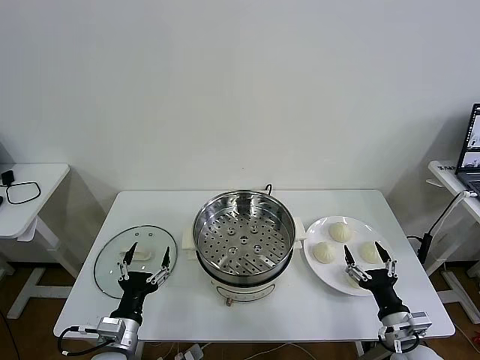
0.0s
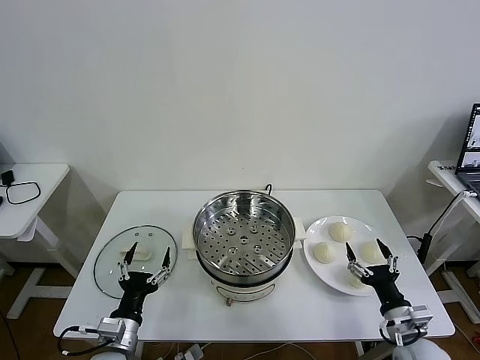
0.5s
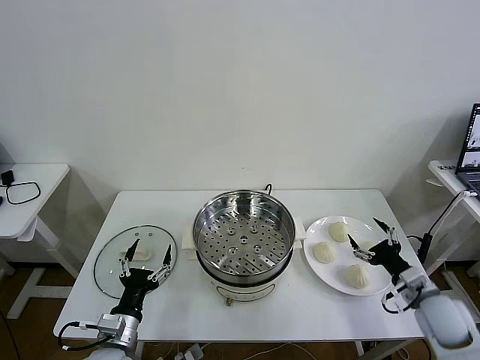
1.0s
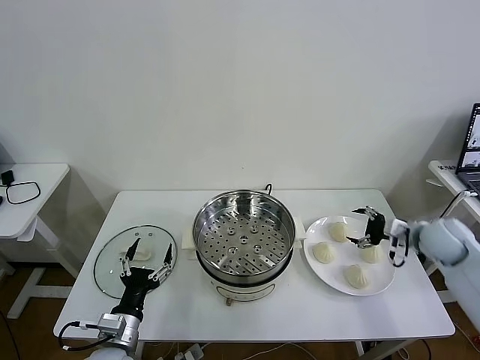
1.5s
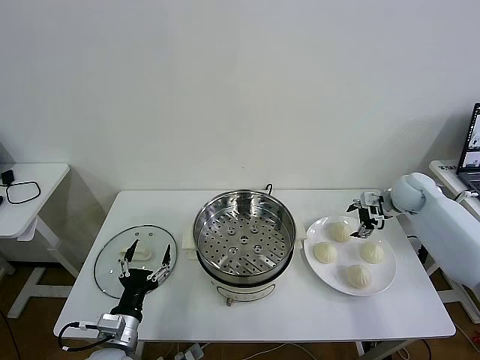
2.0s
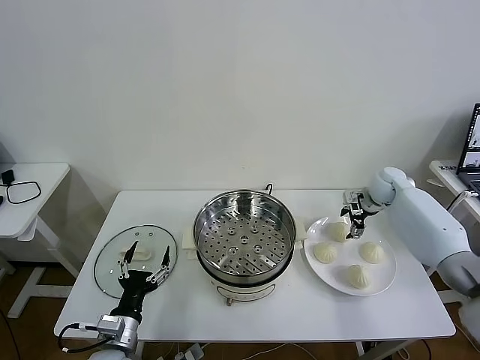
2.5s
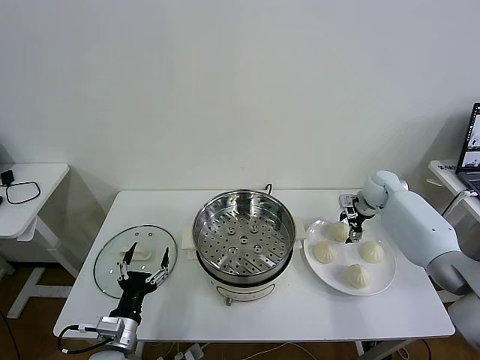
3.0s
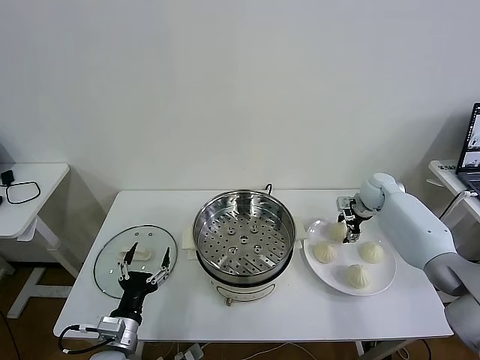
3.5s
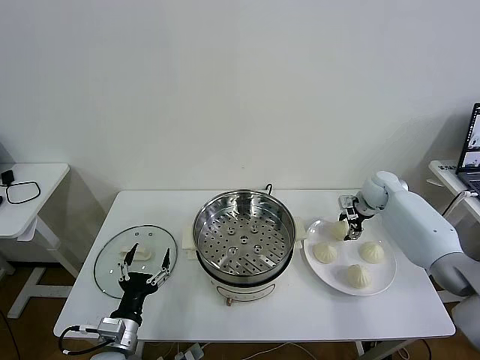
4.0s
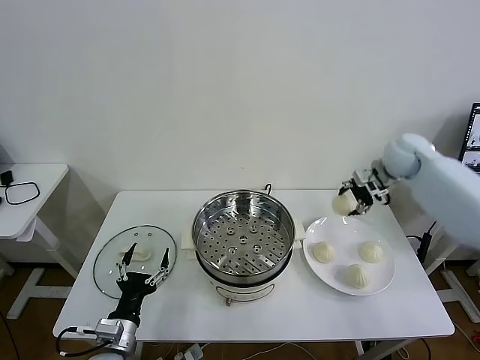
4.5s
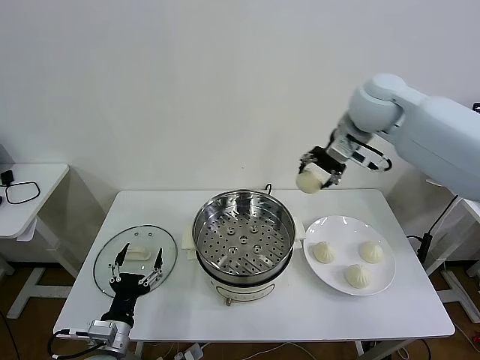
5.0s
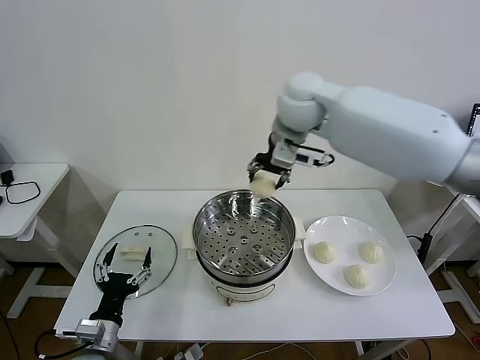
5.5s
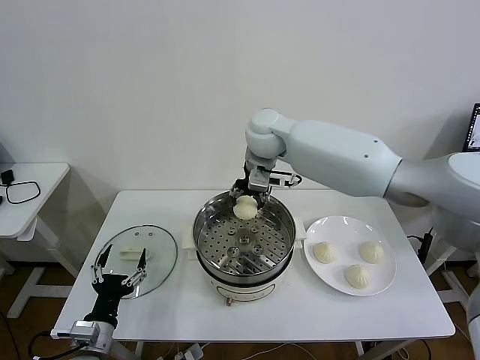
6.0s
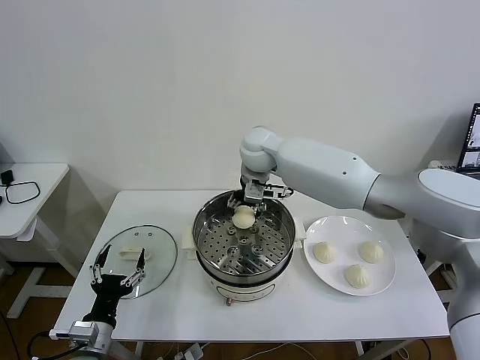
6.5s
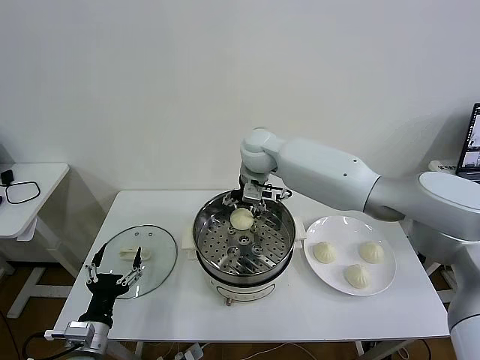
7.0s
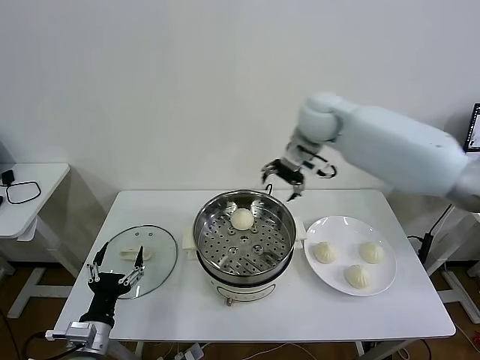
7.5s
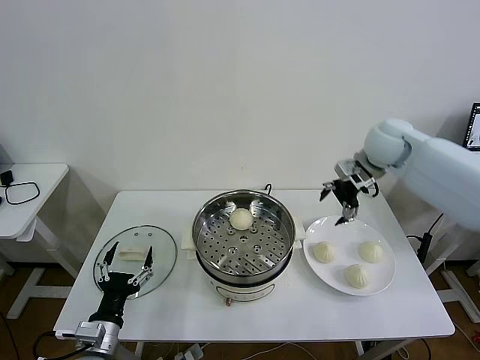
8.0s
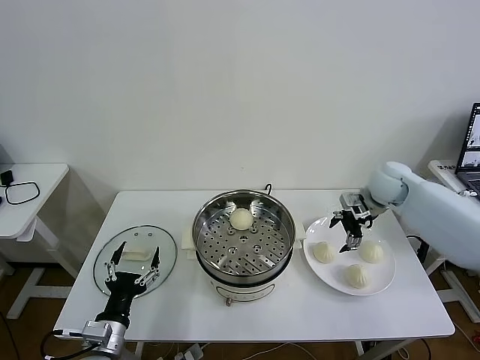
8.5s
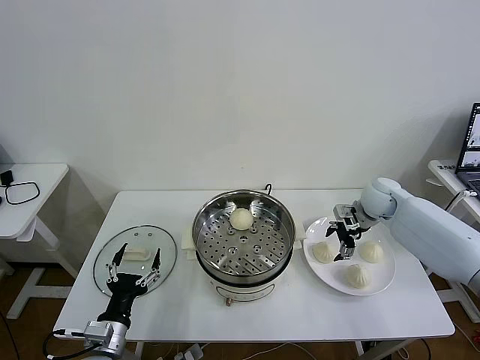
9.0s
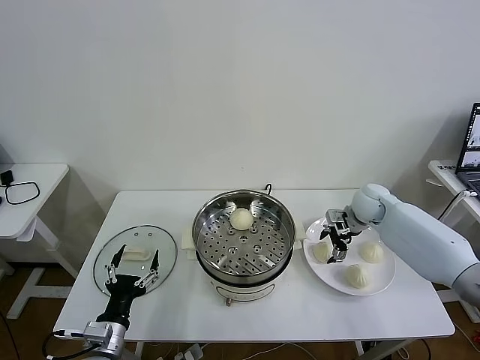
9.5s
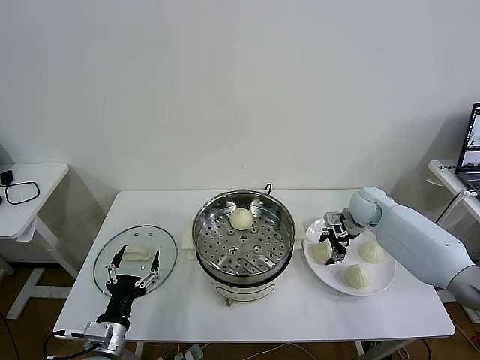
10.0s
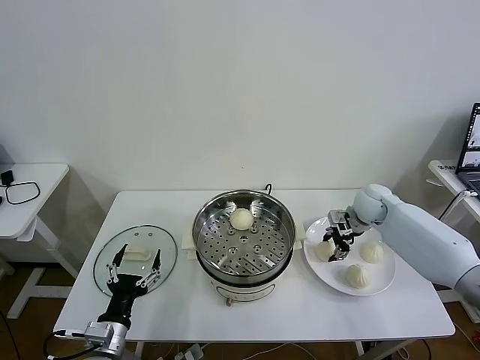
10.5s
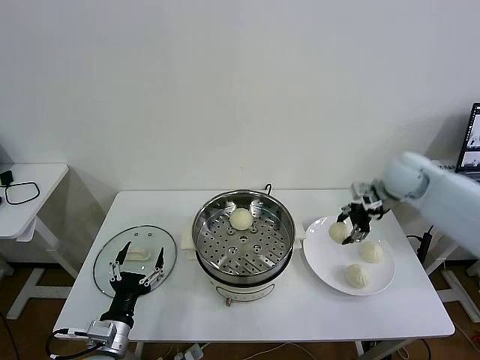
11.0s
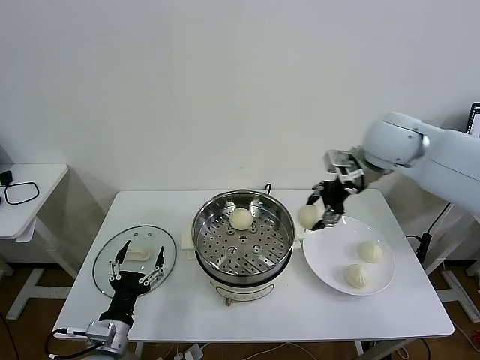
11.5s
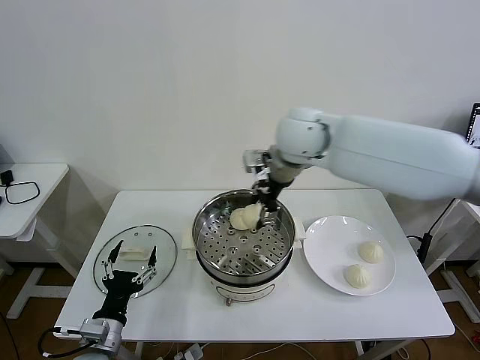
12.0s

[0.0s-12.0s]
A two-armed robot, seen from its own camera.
Task of the whole recording: take steamed baozi put them in steamer then cover it.
Step, 0.0s to 3.5s: Grasp the baozi in the plate with right gripper.
Step, 4.0s to 6.5s: Place the baozi on the steamer with right gripper.
Step, 7.5s to 10.0s: Grasp the baozi in the plate with right gripper.
2.0s to 4.0s: The right gripper closes.
4.0s to 6.0s: The right gripper shifts some 40 cm to the left and upward.
6.0s to 8.0s: The right gripper is displaced to the right by approximately 30 cm, and opens.
8.0s to 10.0s: The right gripper travels downward by some 15 cm, and closes up.
10.0s to 12.0s: The right gripper shifts some 35 cm to the left and upward, and closes up.

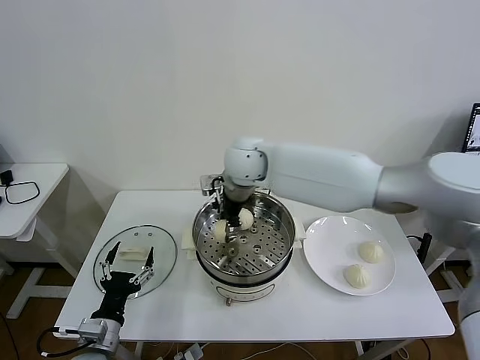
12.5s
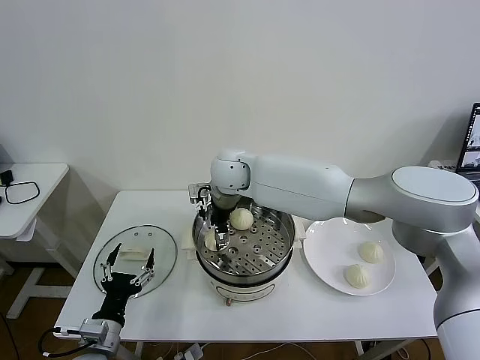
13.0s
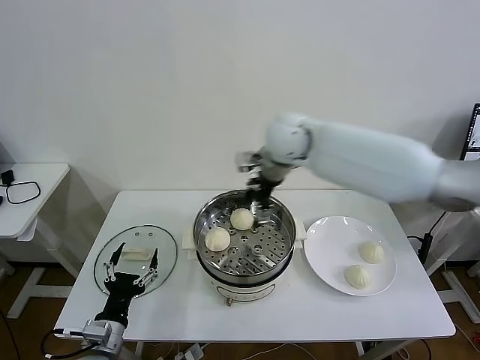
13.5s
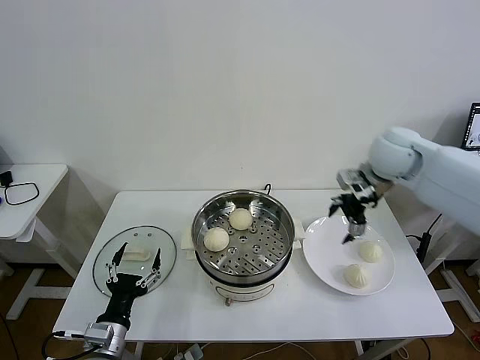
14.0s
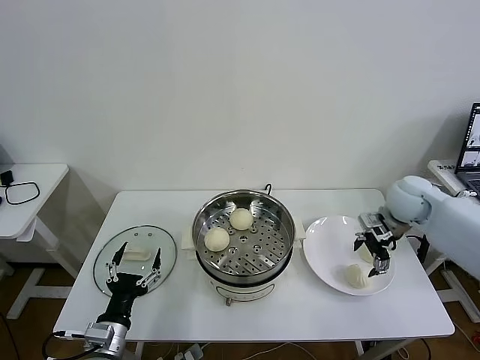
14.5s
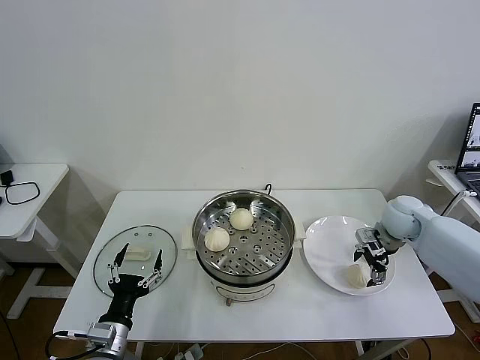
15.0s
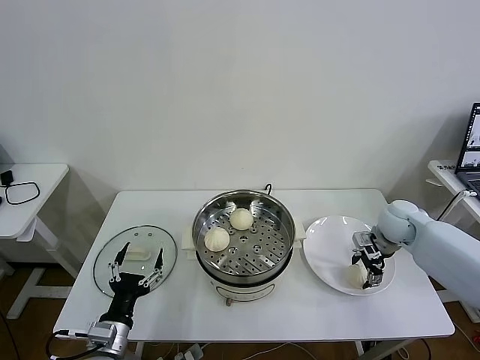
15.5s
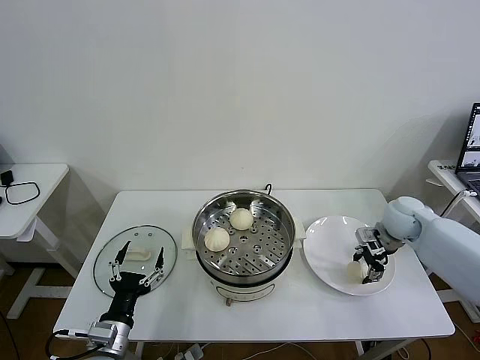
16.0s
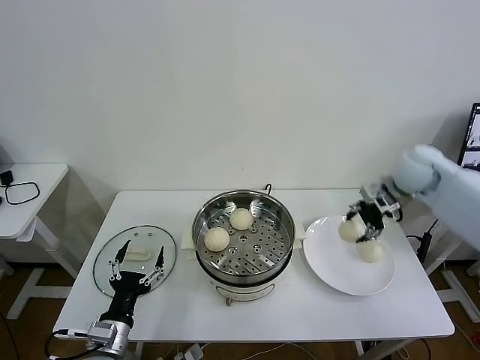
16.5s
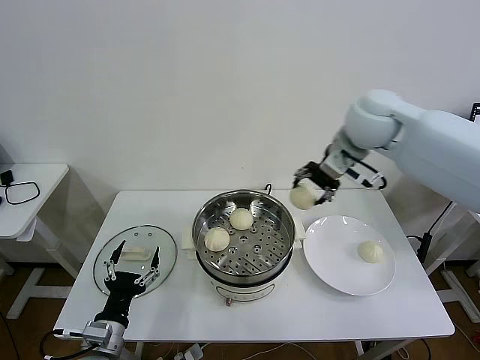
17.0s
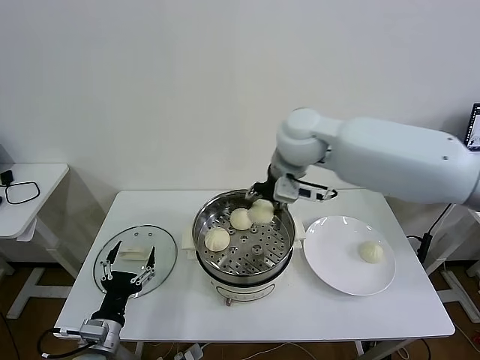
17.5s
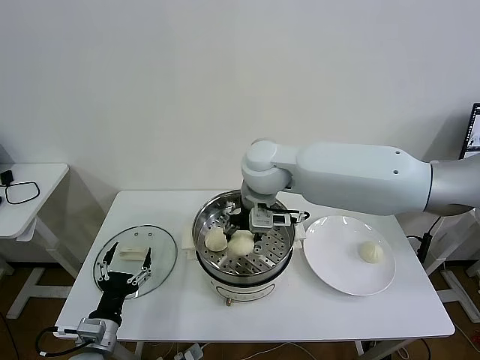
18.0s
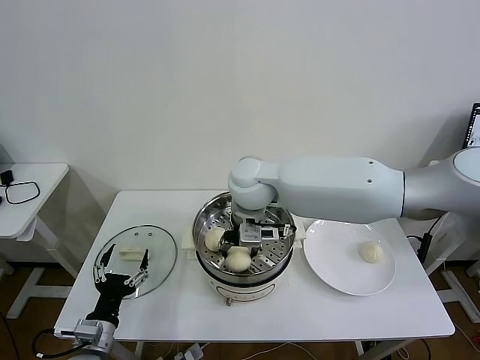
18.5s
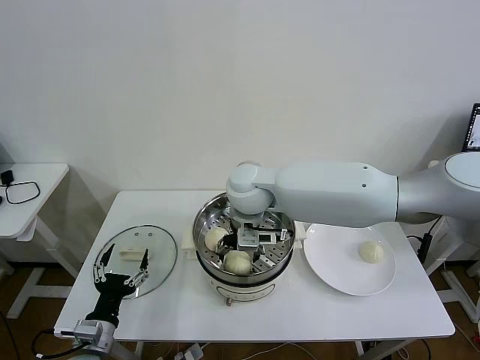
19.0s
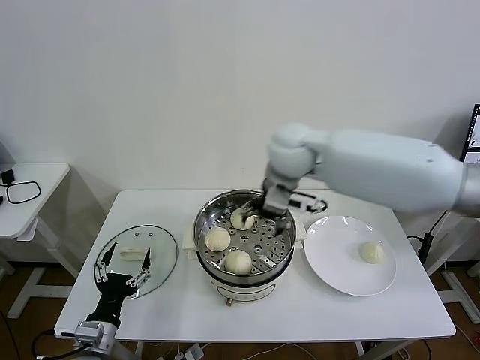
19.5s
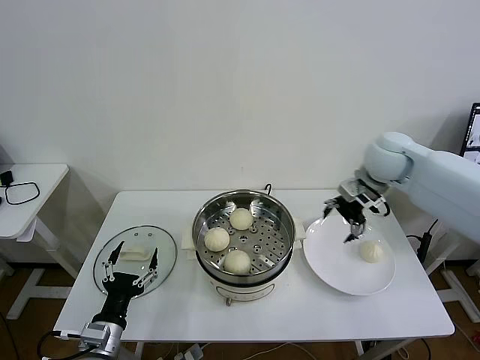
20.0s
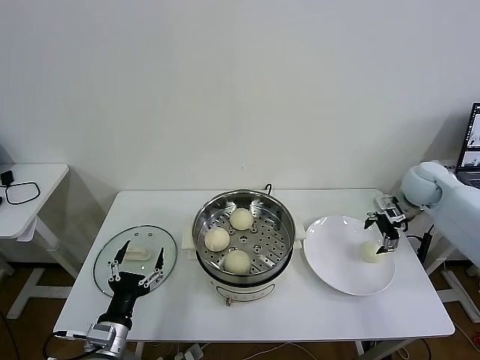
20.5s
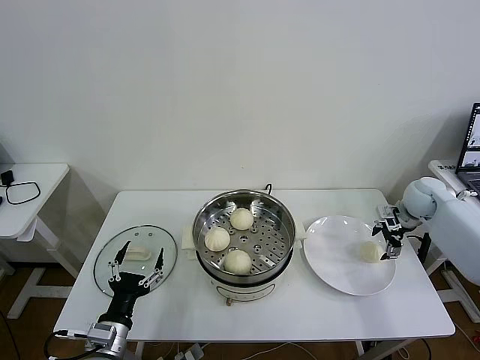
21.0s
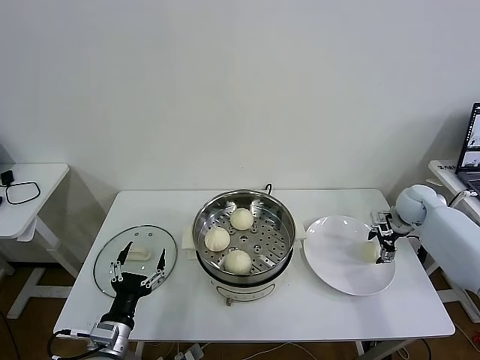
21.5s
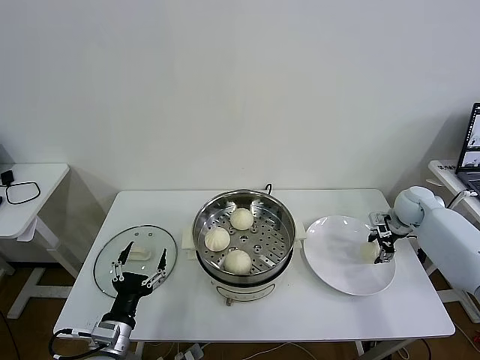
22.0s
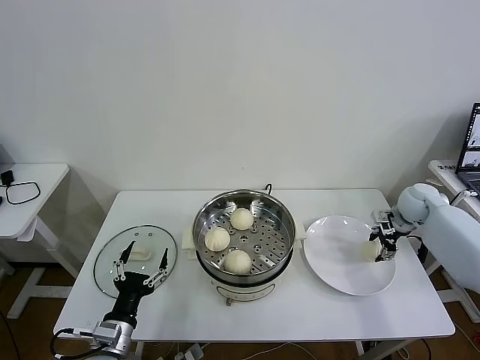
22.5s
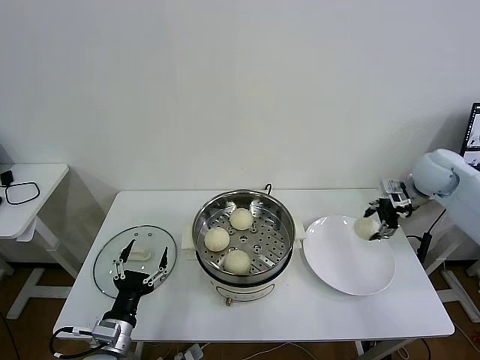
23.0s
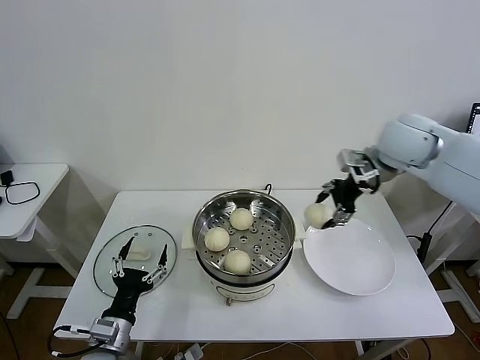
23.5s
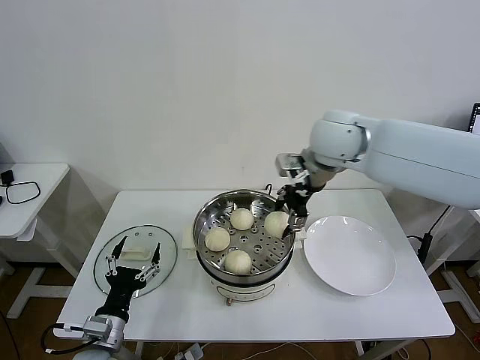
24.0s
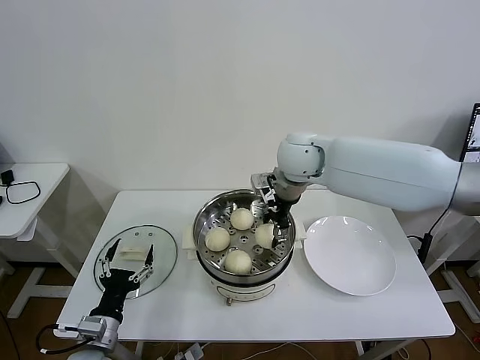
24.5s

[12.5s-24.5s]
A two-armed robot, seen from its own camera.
Task of the whole recording: take steamed baozi put them in steamer then cover it.
Step, 13.5s to 15.5s: Grasp the baozi in the plate with right gripper.
Step, 16.0s to 19.0s: Place the baozi on the steamer with right gripper.
Step, 19.5s to 22.0s: Grasp the baozi in the plate with right gripper.
12.5s to 14.5s: The right gripper travels to the right by roughly 40 cm, and opens.
14.5s to 16.5s: The right gripper travels upward by approximately 10 cm, and closes.
16.5s to 18.5s: The right gripper heads to the left, covering roughly 35 cm.
18.5s to 20.5s: The right gripper goes roughly 40 cm to the right, and opens its fingers.
20.5s to 22.5s: The right gripper shifts approximately 5 cm downward, and closes.
22.5s to 24.5s: The right gripper is displaced to the left and upward by some 40 cm.

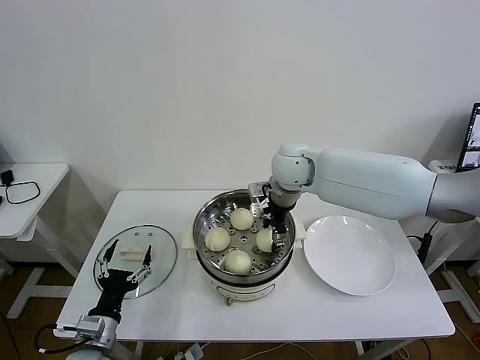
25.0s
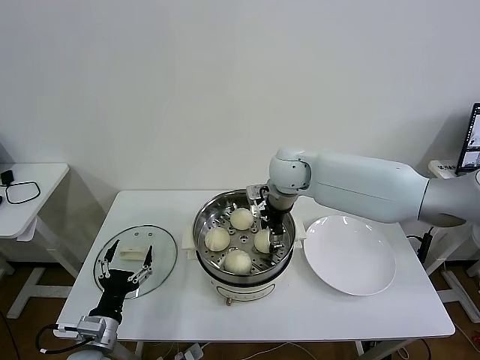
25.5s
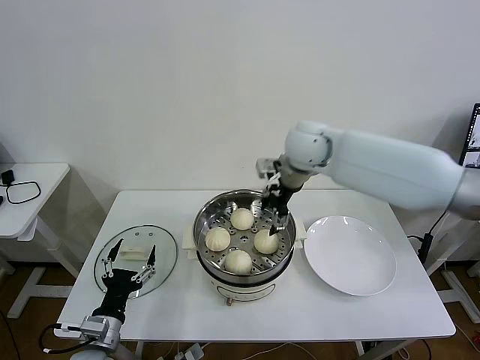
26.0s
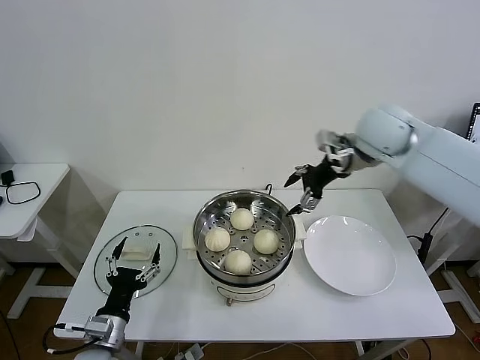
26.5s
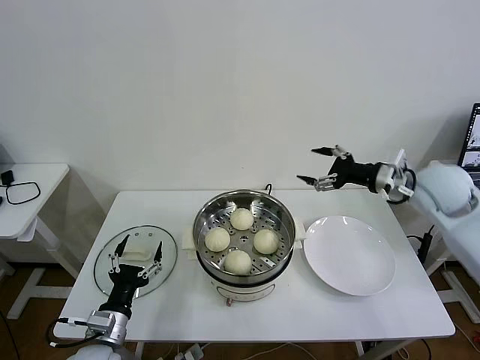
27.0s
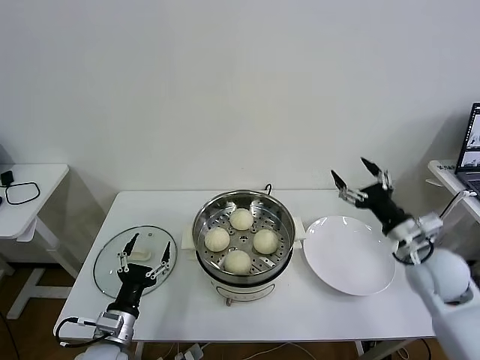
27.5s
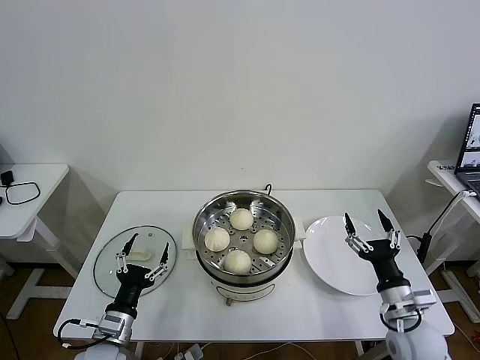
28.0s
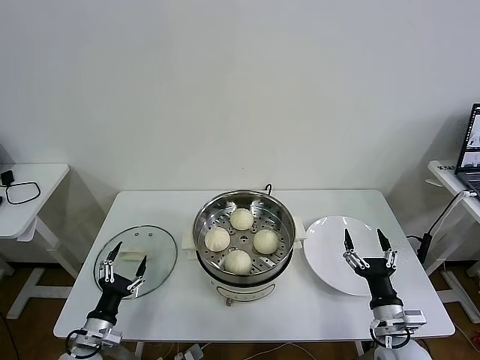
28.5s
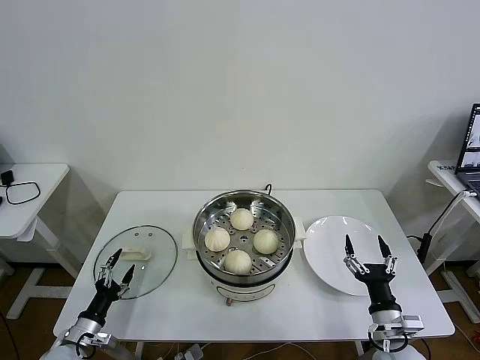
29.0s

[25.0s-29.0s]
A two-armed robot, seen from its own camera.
Task of the whole recording: take steamed baozi put them in steamer then cover it.
25.0s to 27.0s: The right gripper moves to the right, roughly 25 cm, and opens its fingers.
27.0s to 29.0s: The left gripper is displaced to the left and downward by some 15 cm; the right gripper moves downward and backward, some 35 cm.
